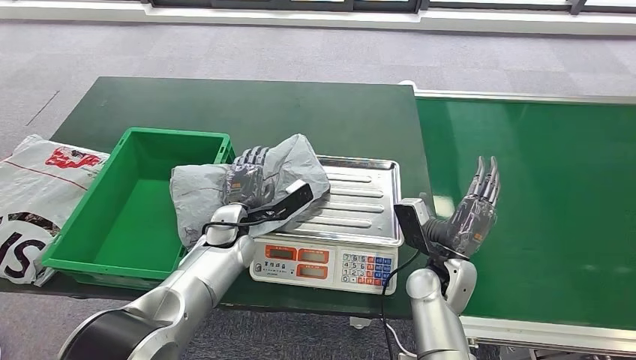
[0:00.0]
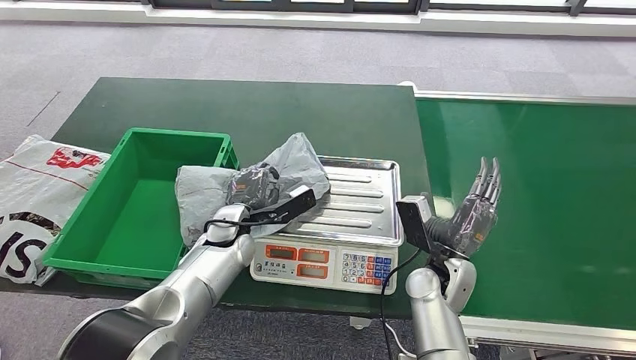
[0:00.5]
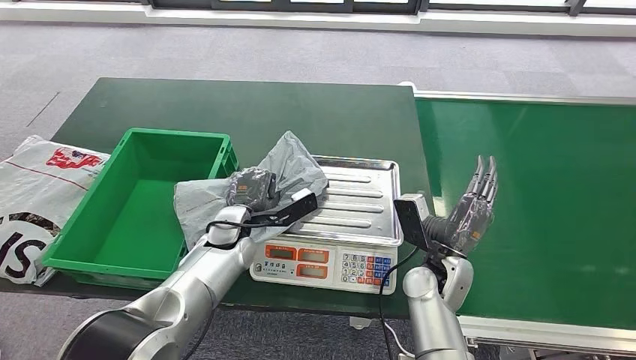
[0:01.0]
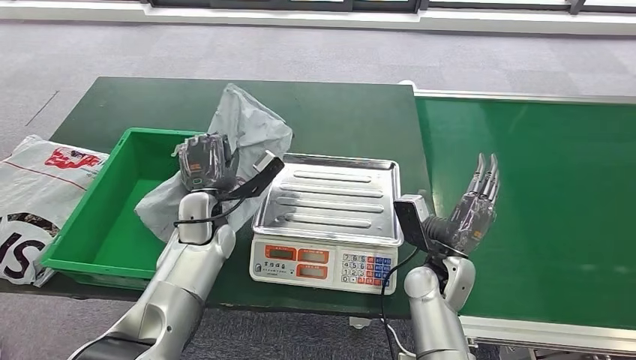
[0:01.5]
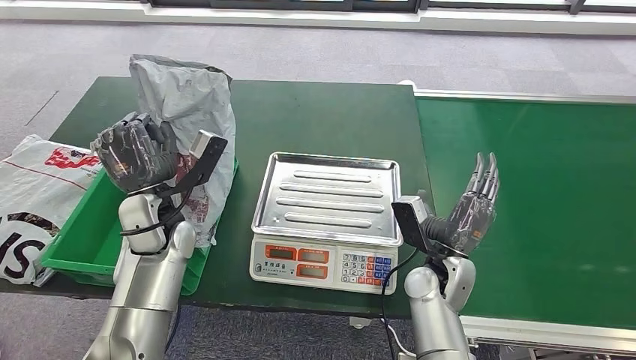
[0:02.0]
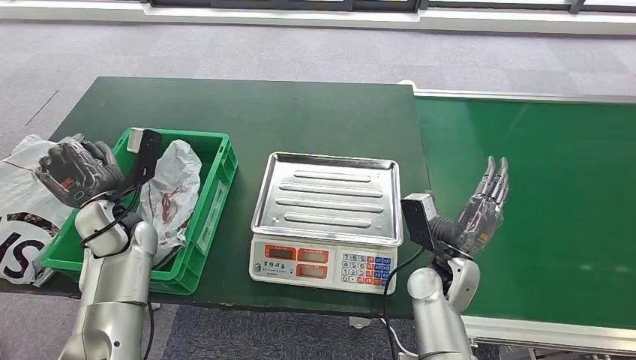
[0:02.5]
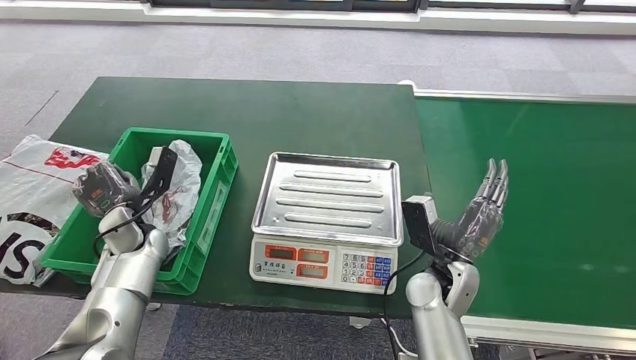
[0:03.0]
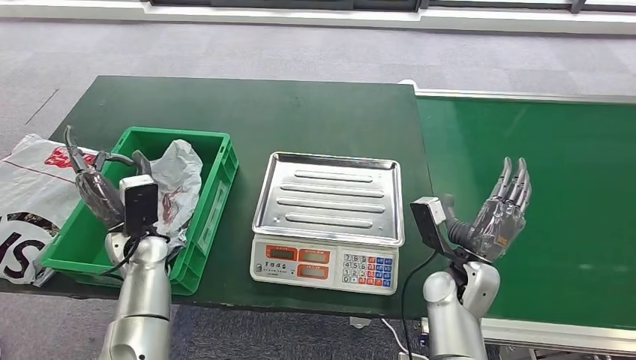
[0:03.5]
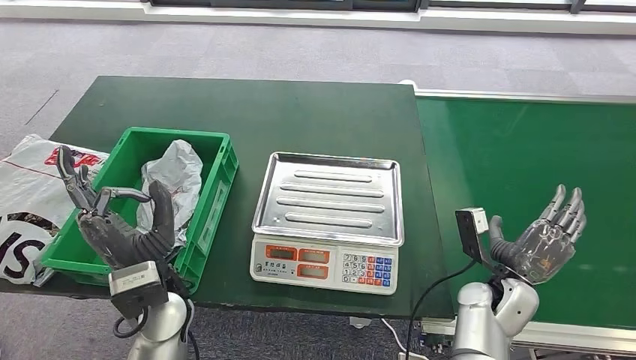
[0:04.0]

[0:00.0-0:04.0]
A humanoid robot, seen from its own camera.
Task of the whole recording: Weigh the package on the weighing device and place it in the left basket.
Step, 0:00.0 to 0:02.0: Pick up the package from the inbound machine.
Step, 0:02.5 to 0:04.0: Place the package into the parcel locker.
0:00.0 to 0:02.0: The left hand heads upward and to the left, covering some 15 cm.
